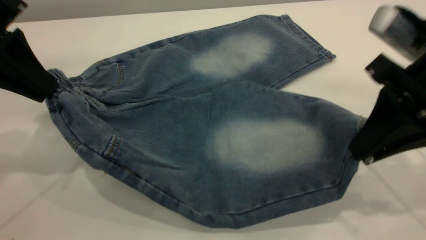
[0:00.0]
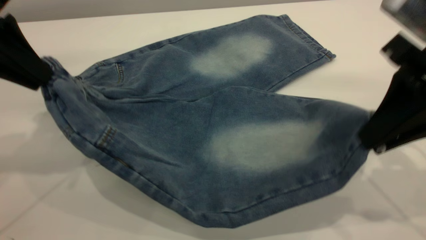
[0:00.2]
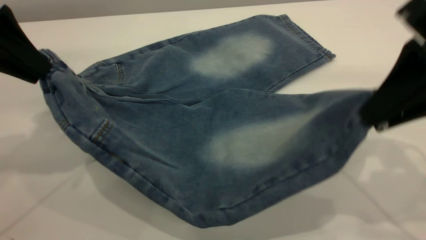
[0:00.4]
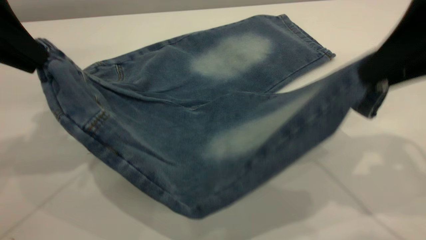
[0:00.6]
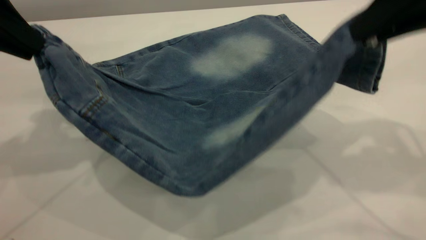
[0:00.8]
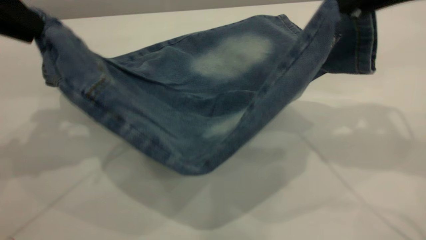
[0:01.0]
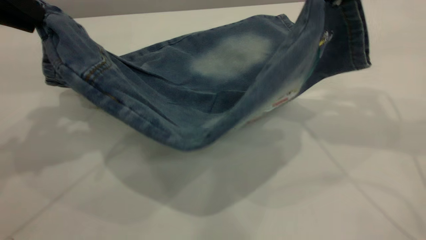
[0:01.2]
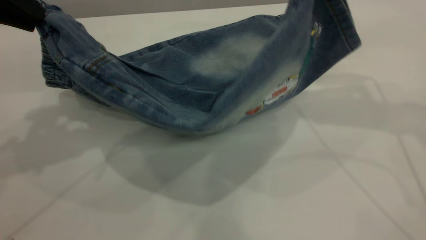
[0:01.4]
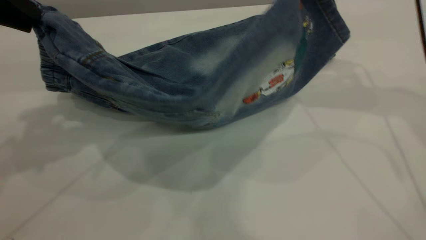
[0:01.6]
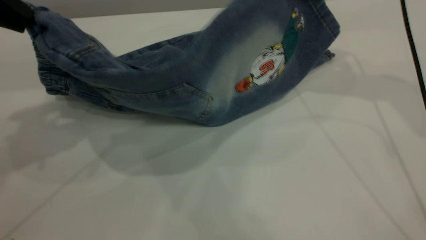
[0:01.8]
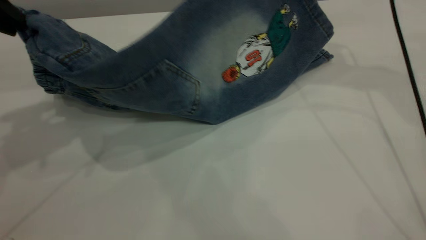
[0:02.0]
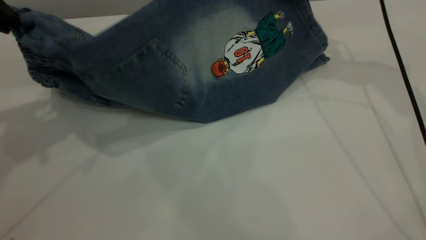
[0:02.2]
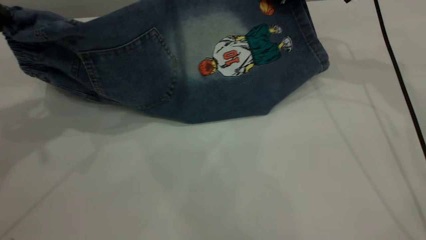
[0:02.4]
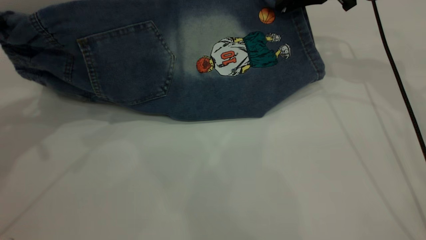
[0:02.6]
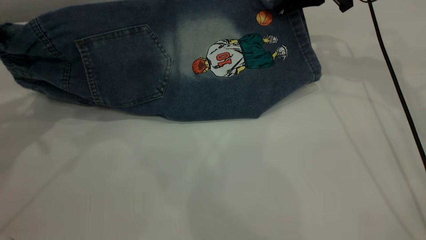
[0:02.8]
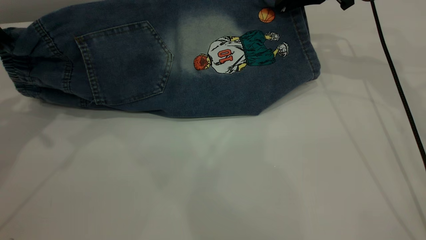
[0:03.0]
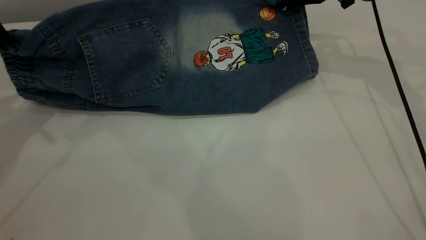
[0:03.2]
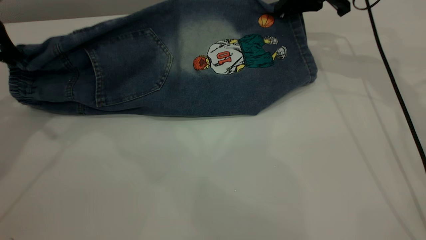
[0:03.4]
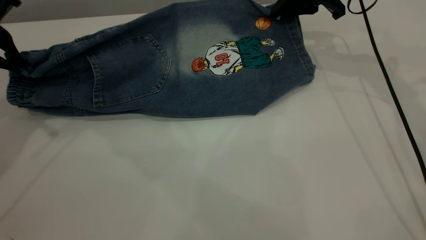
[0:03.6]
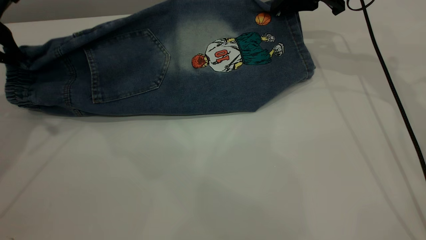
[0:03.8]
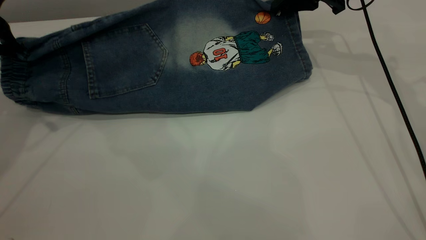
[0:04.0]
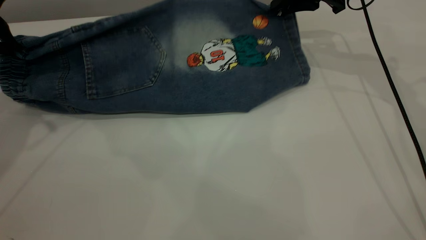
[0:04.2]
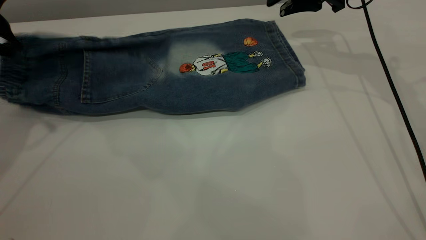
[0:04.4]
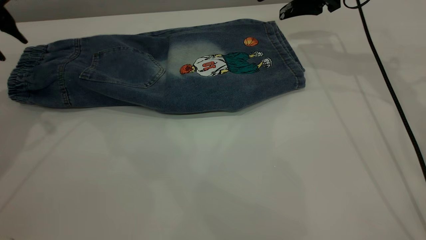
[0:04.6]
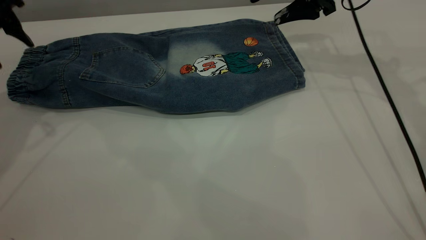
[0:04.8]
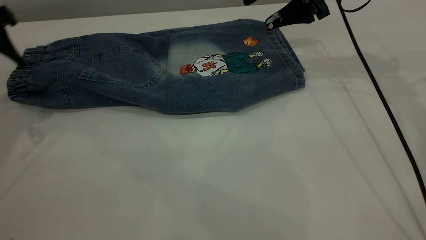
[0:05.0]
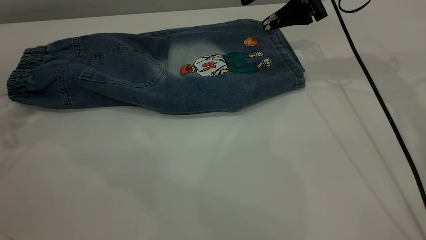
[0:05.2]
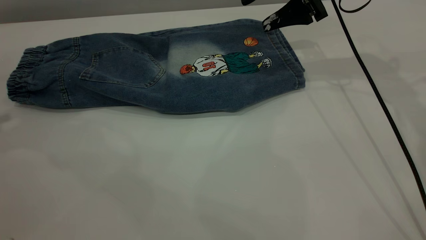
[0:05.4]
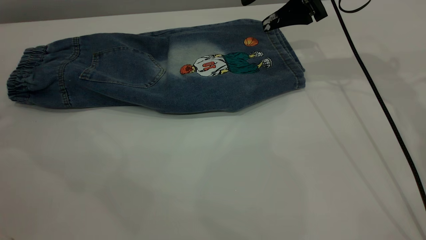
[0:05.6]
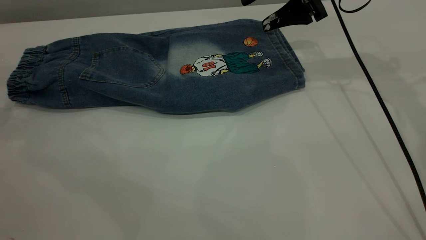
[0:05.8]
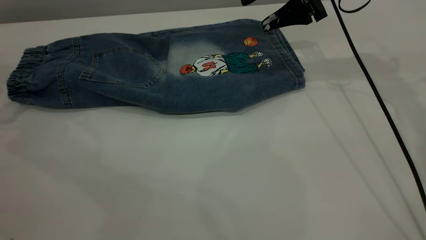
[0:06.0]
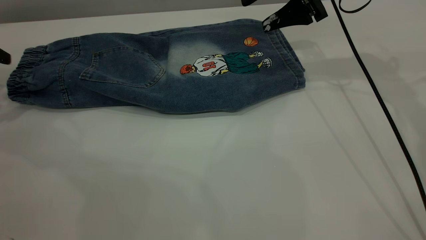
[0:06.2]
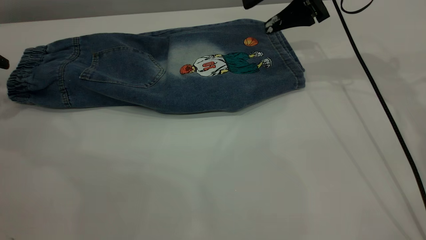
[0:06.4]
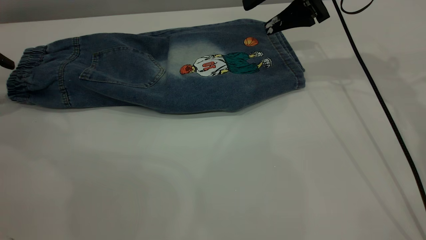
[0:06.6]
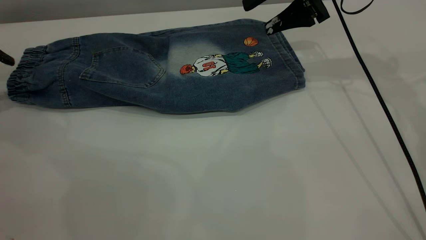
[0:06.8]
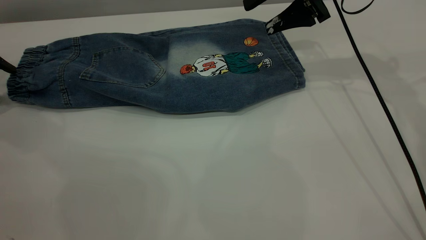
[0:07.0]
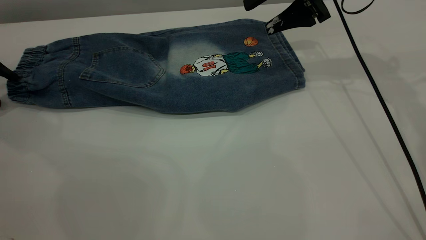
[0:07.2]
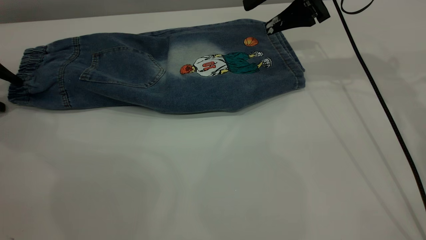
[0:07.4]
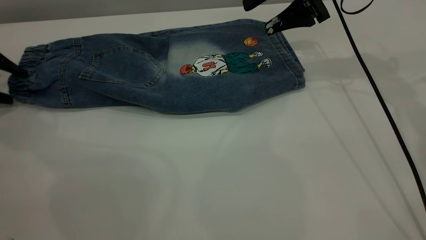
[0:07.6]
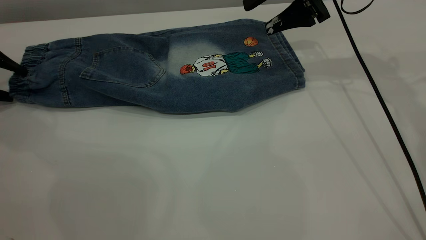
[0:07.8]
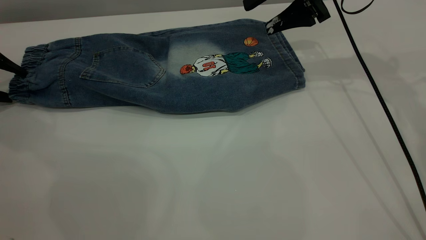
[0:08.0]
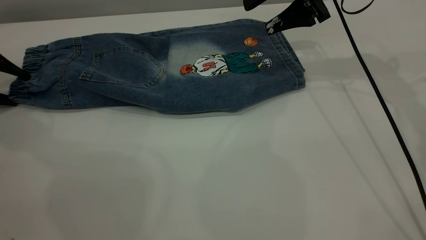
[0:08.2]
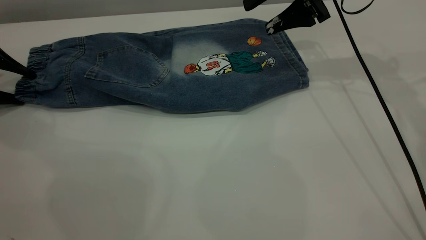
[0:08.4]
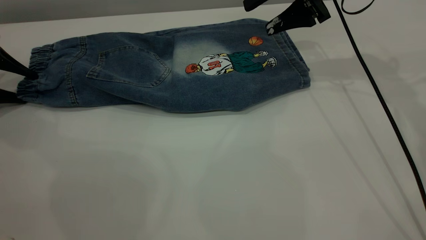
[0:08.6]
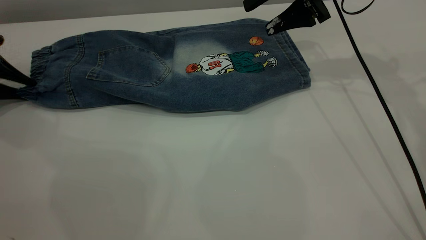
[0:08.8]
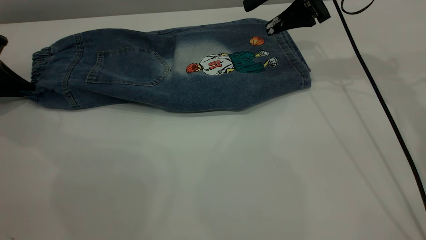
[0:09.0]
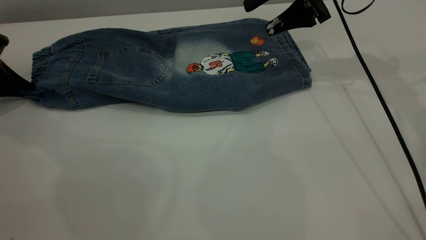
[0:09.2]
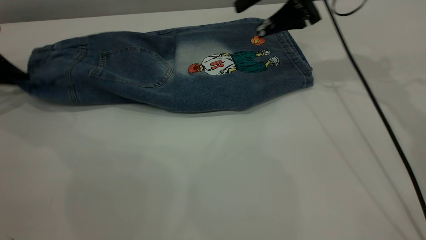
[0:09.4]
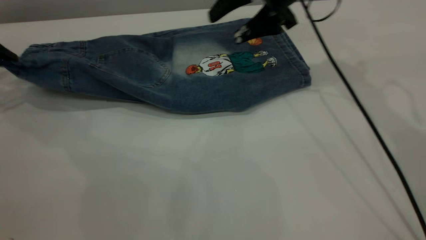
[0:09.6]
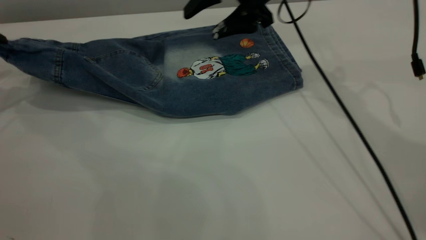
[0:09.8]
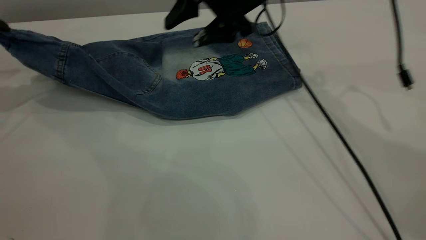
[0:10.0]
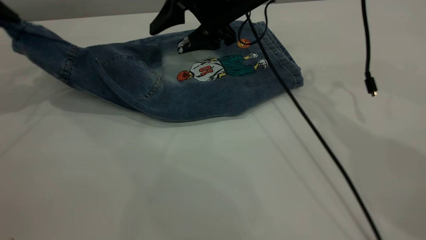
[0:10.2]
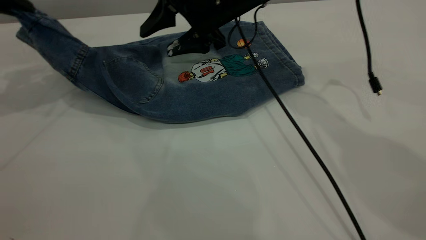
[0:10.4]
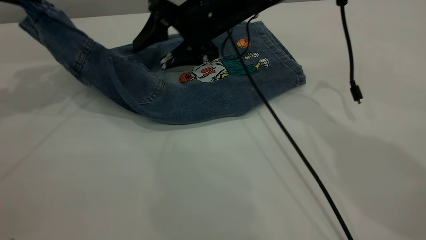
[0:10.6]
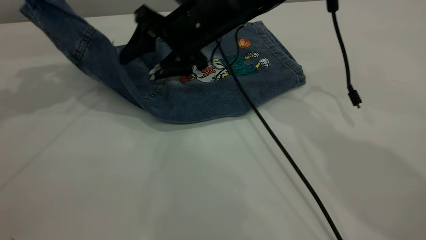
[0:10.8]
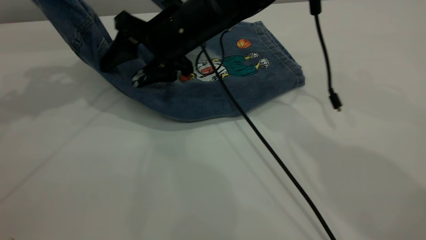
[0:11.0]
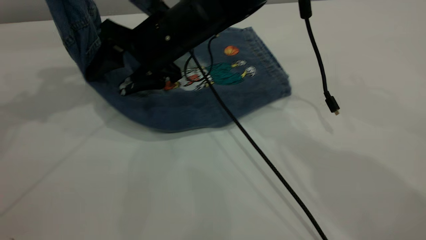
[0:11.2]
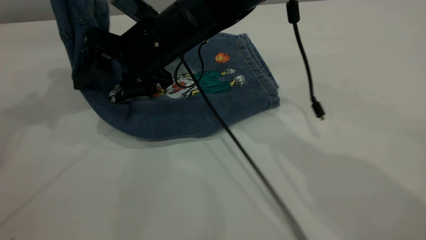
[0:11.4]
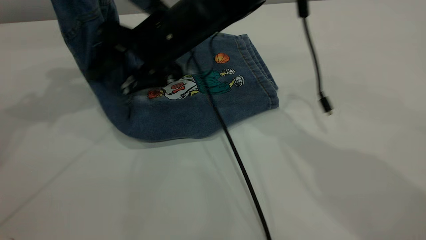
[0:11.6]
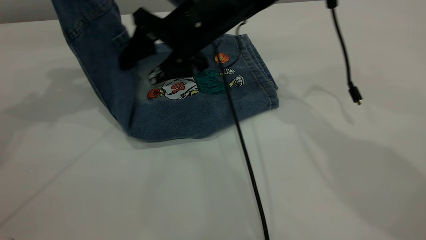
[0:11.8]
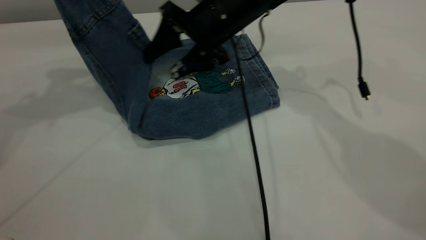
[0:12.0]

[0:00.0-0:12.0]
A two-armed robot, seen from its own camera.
Step, 0:00.0 to 0:04.6: Fold the bottom of the pants upward.
0:00.0 to 0:01.6: The left gripper is displaced upward by approximately 5 cm. Meanwhile the right gripper goes approximately 20 cm forward and upward.
0:01.6 to 0:03.0: The right gripper shifts approximately 10 cm forward and downward. Meanwhile the left gripper changes place by approximately 5 cm.
0:03.0 to 0:04.4: The right gripper opens its fingers; the left gripper shifts by approximately 5 cm.
0:04.4 to 0:06.0: The left gripper goes some 10 cm to the left, and opens its fingers. Meanwhile the right gripper opens up.
0:06.0 to 0:07.6: The left gripper is displaced downward by approximately 5 cm.
0:07.6 to 0:09.0: The left gripper closes its fingers.
0:09.0 to 0:10.4: The right gripper goes some 15 cm to the left. The left gripper shifts about 20 cm upward and to the right.
0:10.4 to 0:12.0: The right gripper goes to the left and returns, some 10 cm each way, while the left gripper is displaced upward and to the right by some 10 cm.

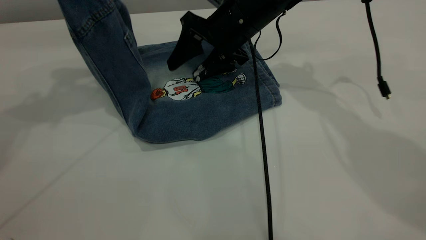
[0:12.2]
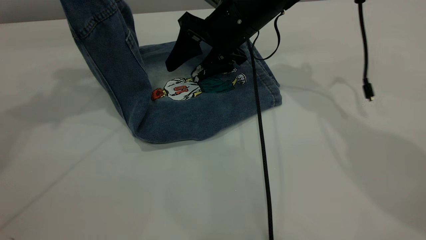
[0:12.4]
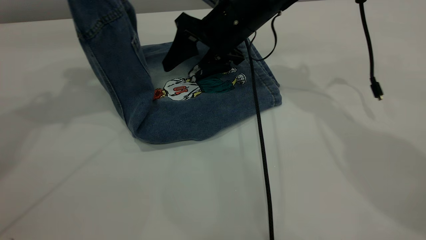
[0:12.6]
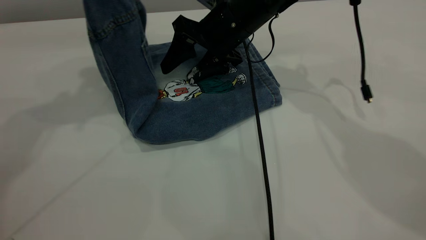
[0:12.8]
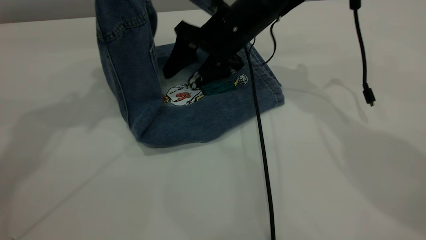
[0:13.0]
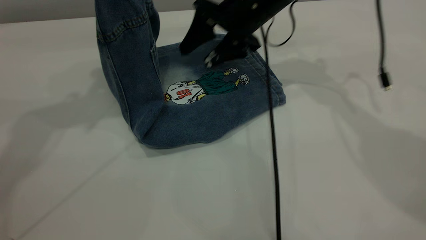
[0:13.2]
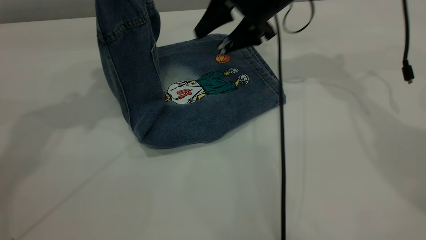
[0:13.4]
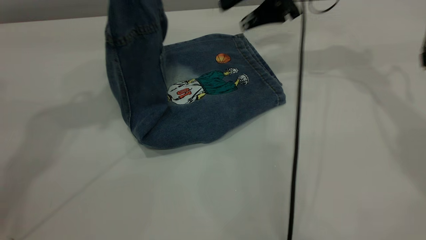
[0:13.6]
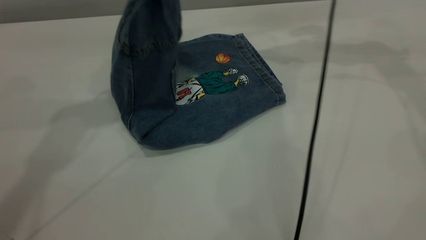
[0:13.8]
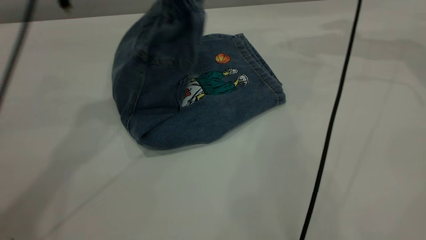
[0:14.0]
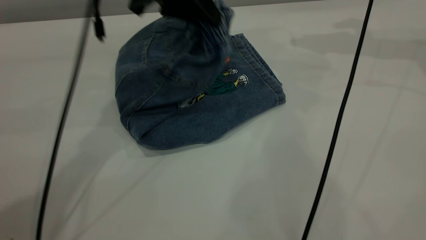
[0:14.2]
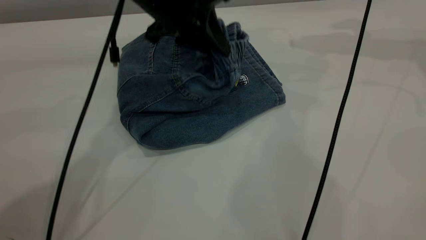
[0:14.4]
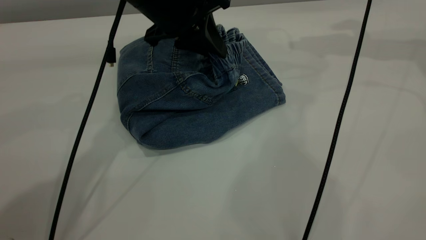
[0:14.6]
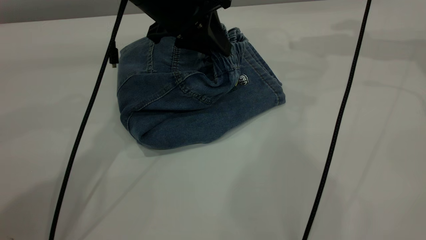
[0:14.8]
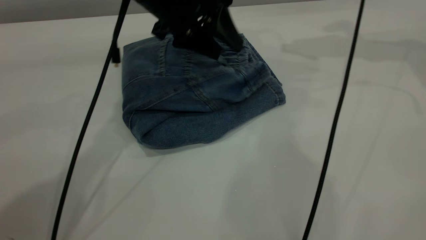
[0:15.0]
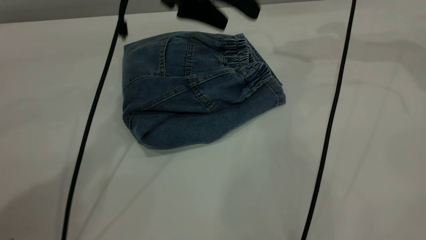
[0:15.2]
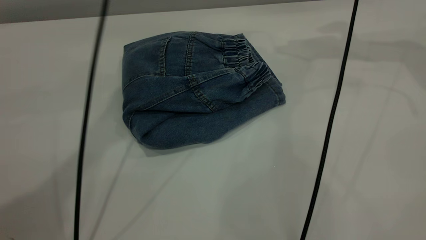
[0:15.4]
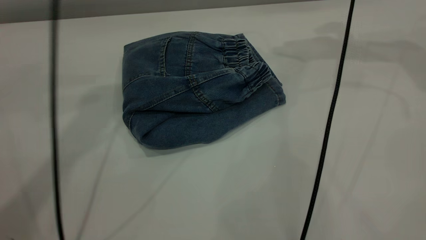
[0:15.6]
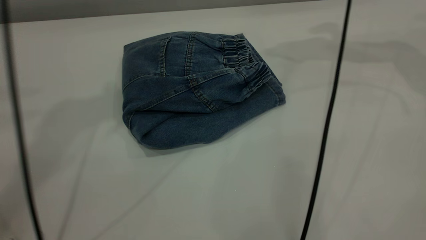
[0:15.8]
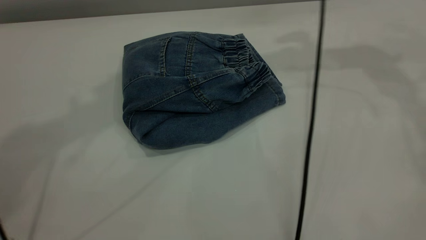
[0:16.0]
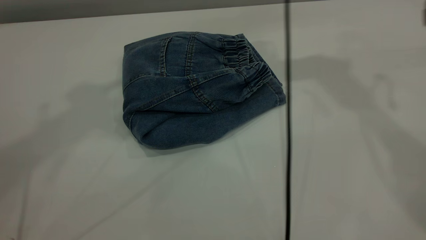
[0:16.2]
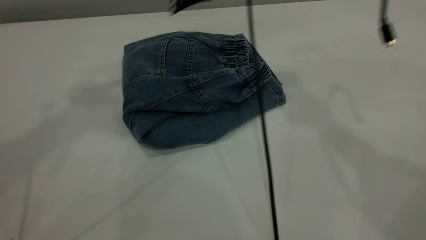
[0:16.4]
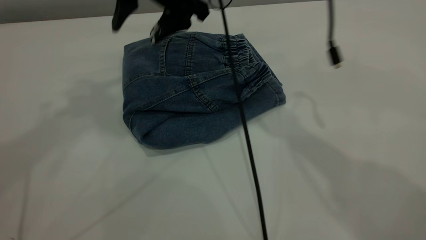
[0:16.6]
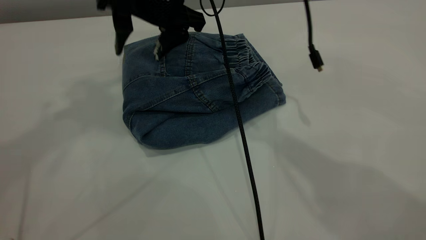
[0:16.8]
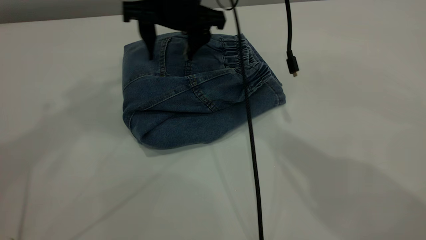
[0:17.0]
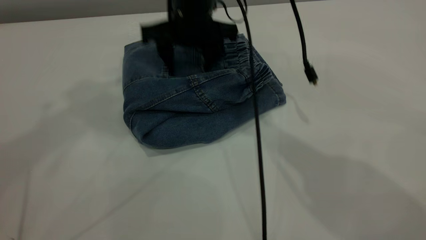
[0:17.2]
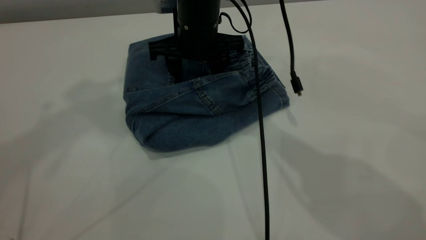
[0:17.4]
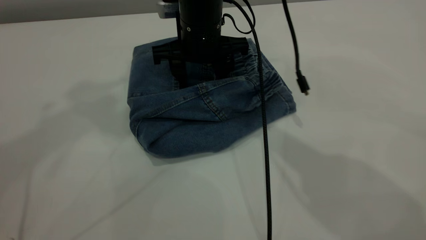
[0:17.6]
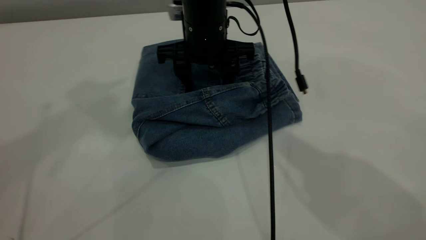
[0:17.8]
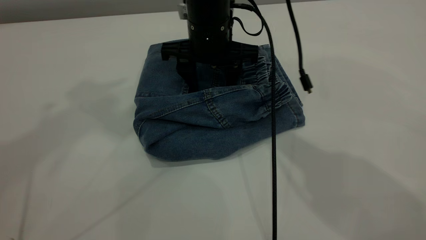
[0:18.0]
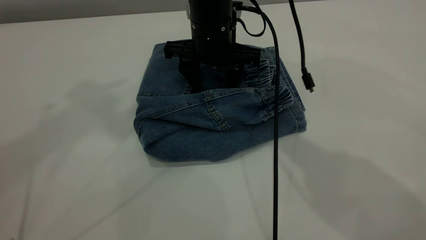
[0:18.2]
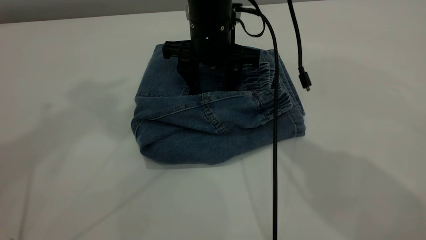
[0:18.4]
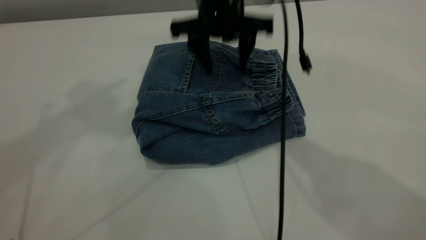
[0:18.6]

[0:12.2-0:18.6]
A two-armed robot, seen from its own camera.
Step, 0:12.2 to 0:15.2: Fold the pants from left to right.
0:12.2 to 0:13.8: The left gripper moves to the right, about 10 cm; the right gripper goes some 20 cm to the right and upward.
0:13.8 to 0:15.4: The right gripper is displaced upward by approximately 5 cm, while the left gripper is displaced to the right by some 5 cm, reaches about 10 cm downward, then returns, and opens its fingers.
0:15.4 to 0:17.0: The right gripper heads to the left, covering roughly 30 cm. The left gripper travels upward, to the left and backward by roughly 25 cm.
